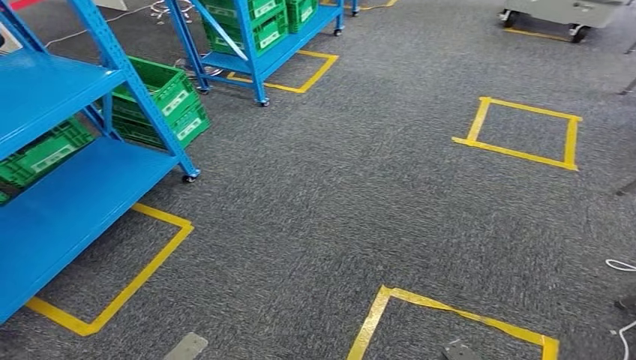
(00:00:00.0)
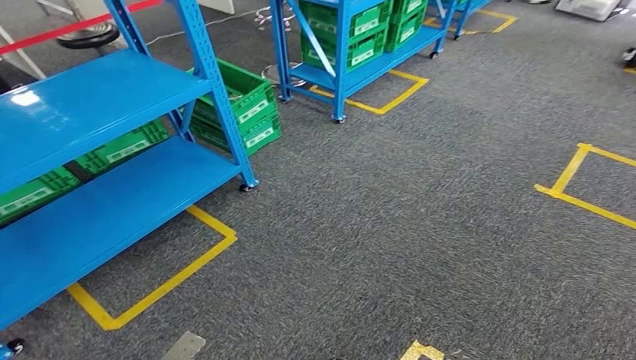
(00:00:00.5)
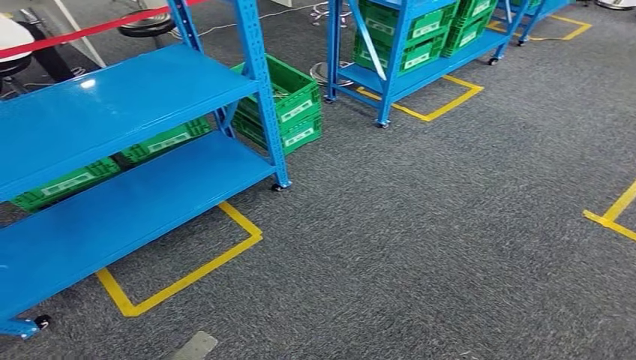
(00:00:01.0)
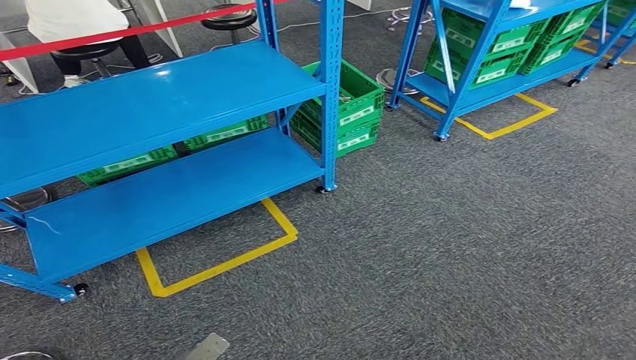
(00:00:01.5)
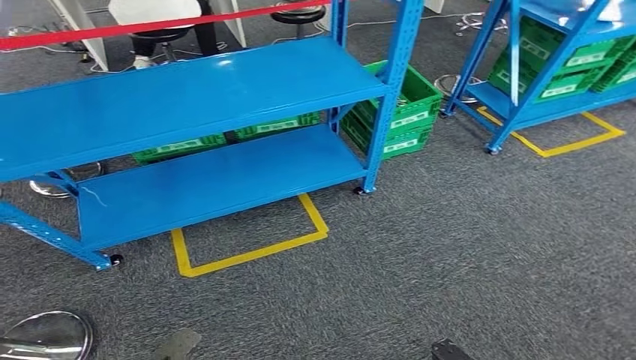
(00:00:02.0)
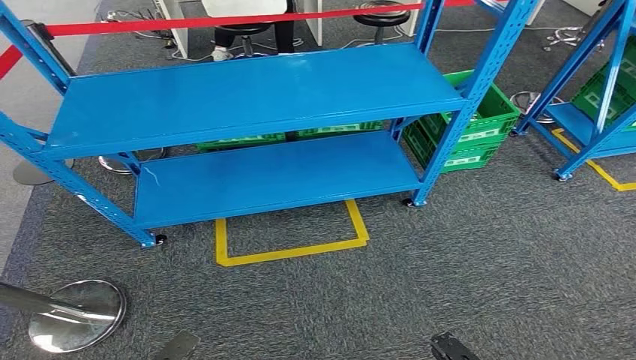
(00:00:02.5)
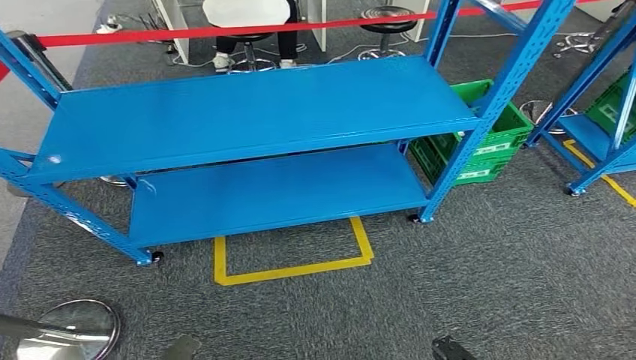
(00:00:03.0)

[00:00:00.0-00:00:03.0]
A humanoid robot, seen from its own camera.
Step, 00:00:00.0 to 00:00:03.0: Return to the initial position at the workbench.
